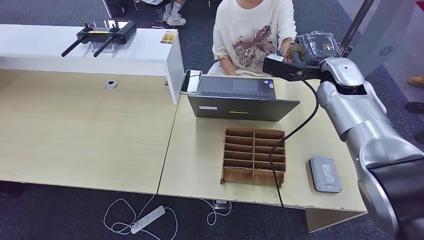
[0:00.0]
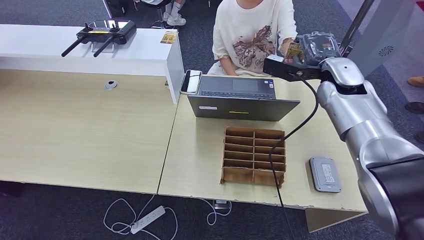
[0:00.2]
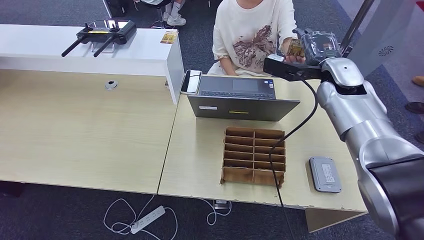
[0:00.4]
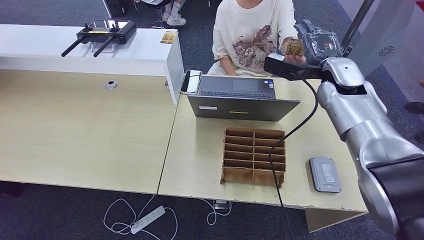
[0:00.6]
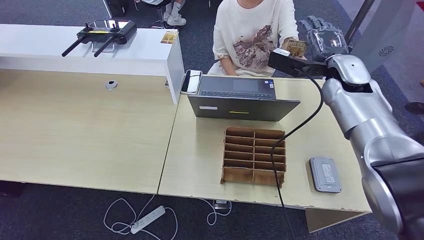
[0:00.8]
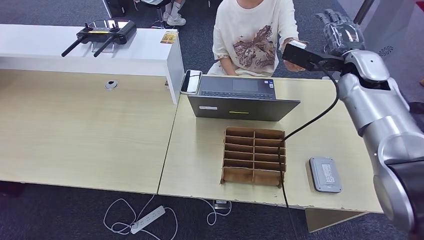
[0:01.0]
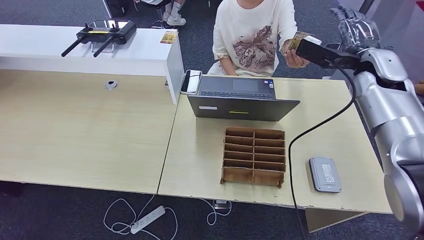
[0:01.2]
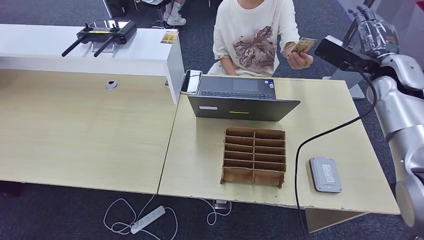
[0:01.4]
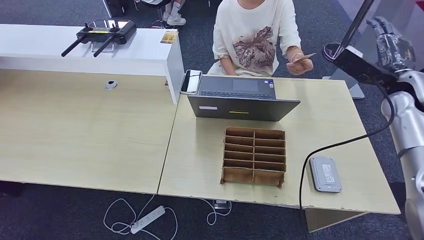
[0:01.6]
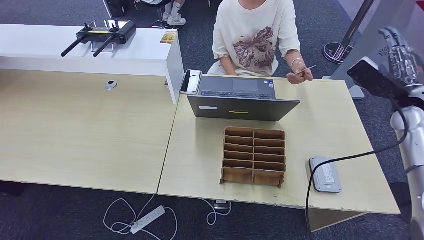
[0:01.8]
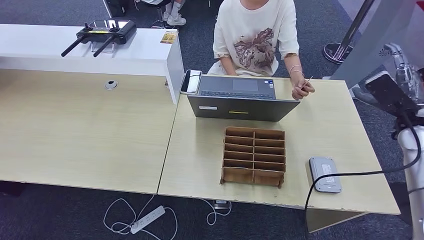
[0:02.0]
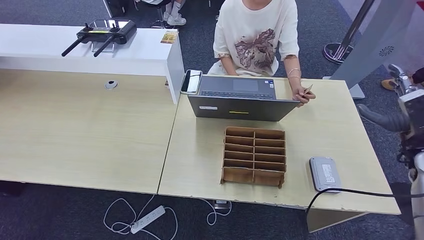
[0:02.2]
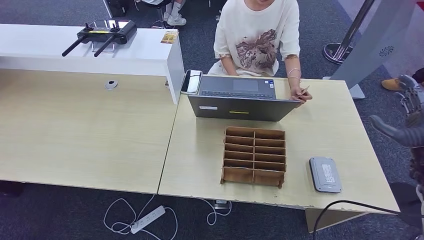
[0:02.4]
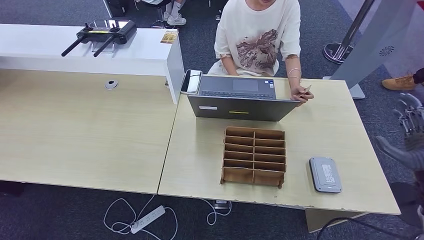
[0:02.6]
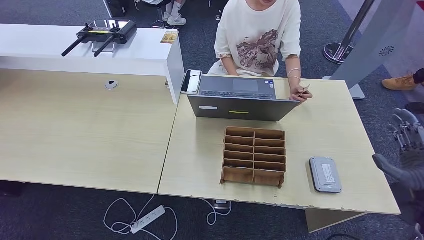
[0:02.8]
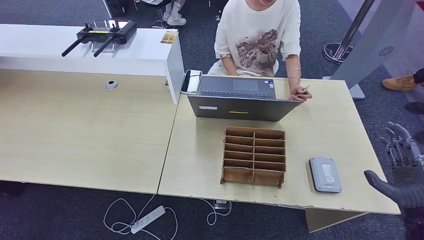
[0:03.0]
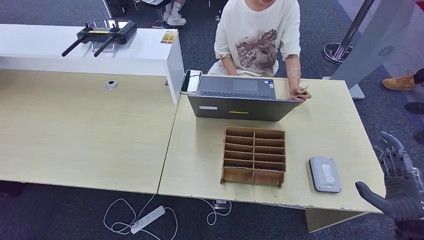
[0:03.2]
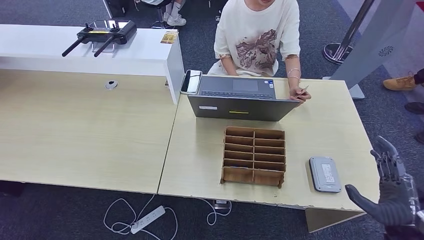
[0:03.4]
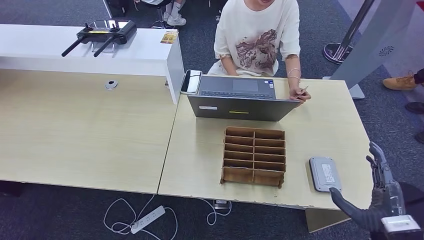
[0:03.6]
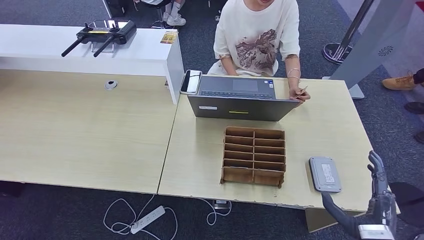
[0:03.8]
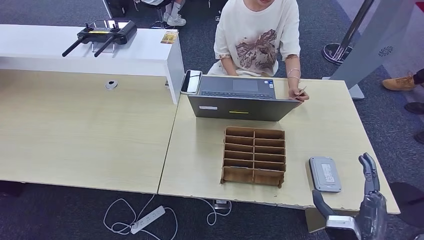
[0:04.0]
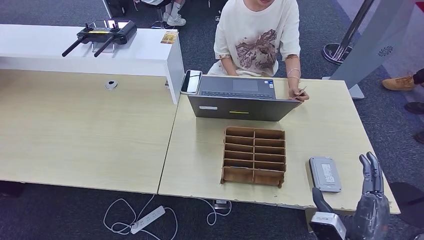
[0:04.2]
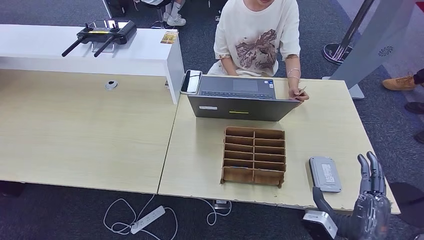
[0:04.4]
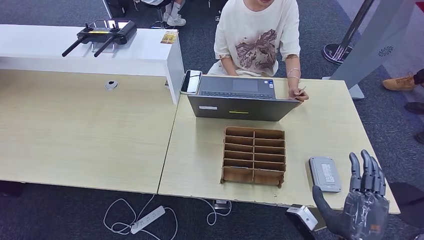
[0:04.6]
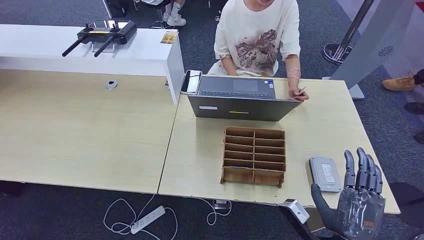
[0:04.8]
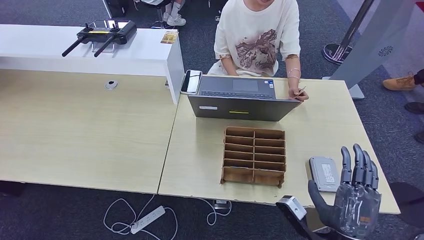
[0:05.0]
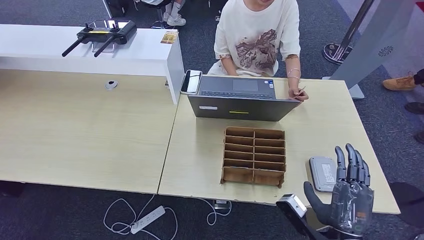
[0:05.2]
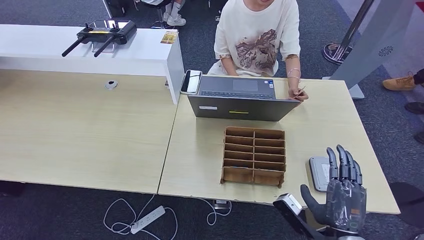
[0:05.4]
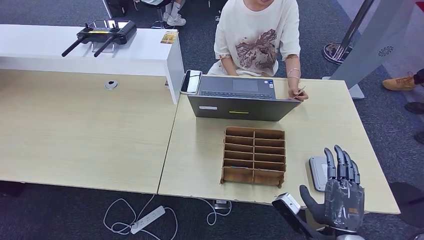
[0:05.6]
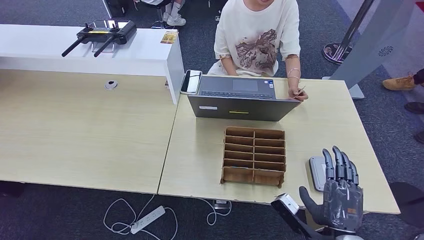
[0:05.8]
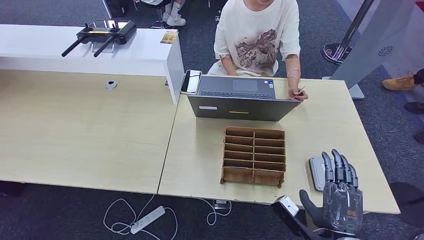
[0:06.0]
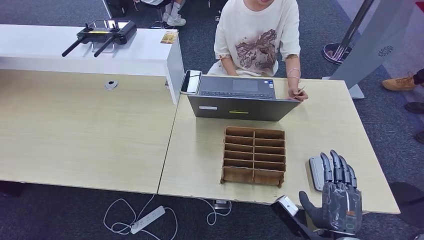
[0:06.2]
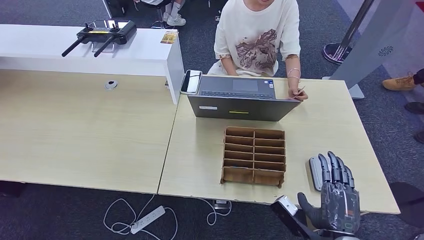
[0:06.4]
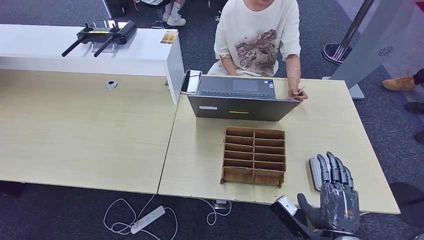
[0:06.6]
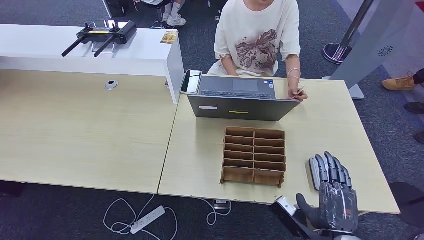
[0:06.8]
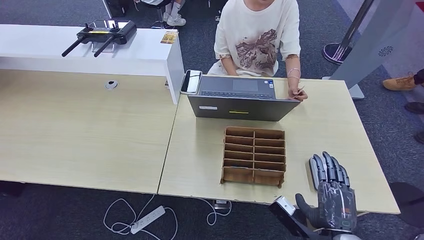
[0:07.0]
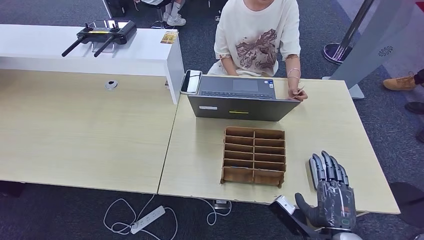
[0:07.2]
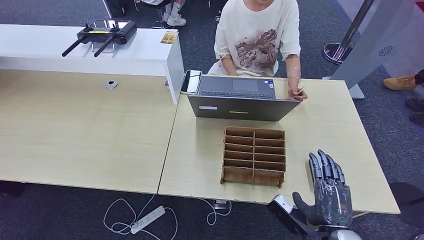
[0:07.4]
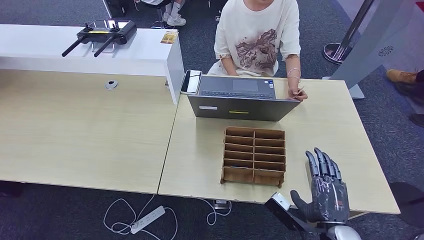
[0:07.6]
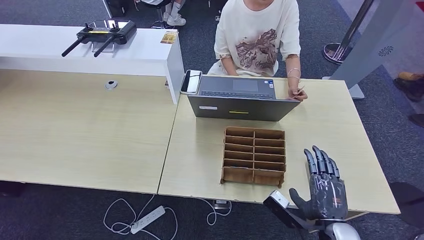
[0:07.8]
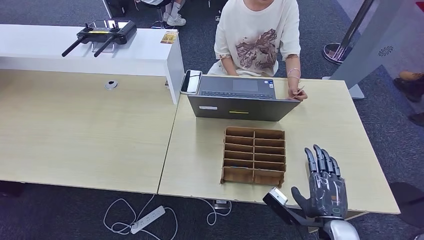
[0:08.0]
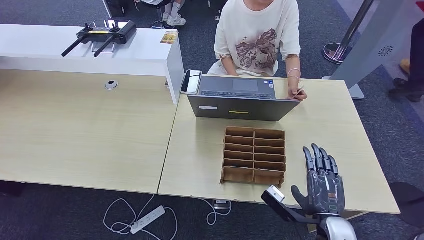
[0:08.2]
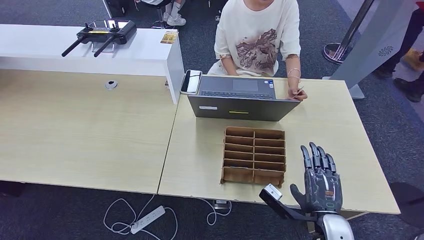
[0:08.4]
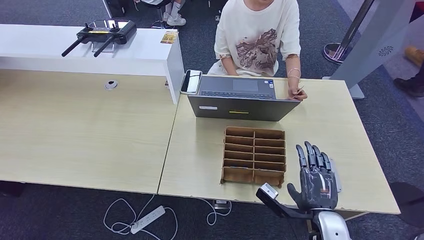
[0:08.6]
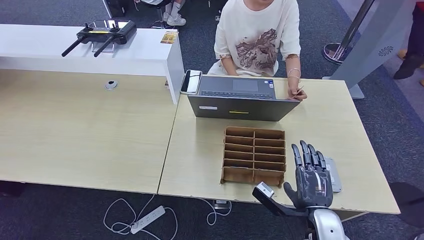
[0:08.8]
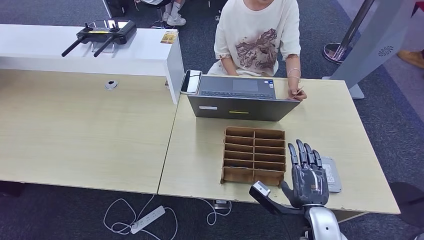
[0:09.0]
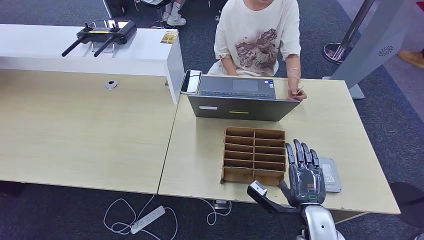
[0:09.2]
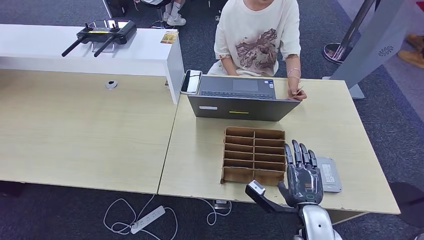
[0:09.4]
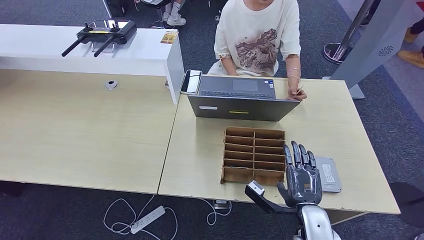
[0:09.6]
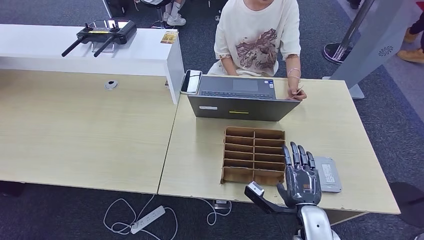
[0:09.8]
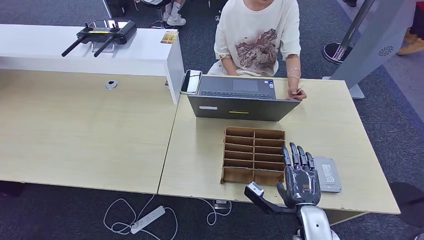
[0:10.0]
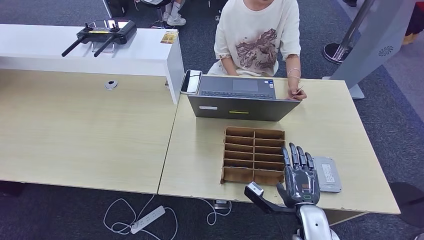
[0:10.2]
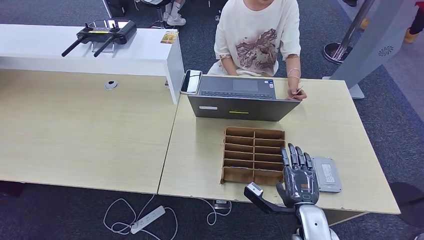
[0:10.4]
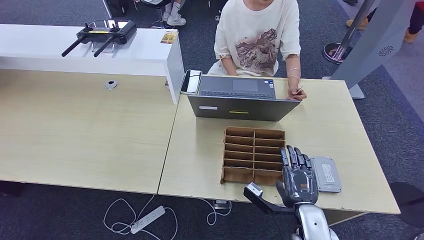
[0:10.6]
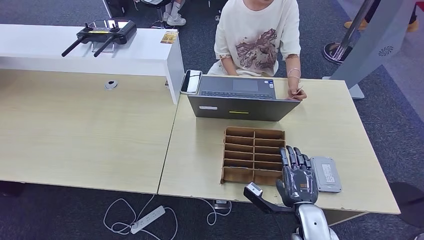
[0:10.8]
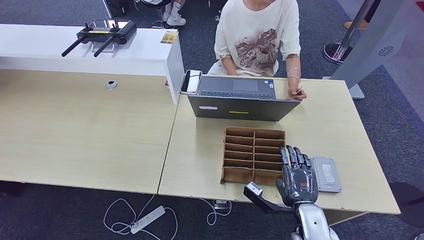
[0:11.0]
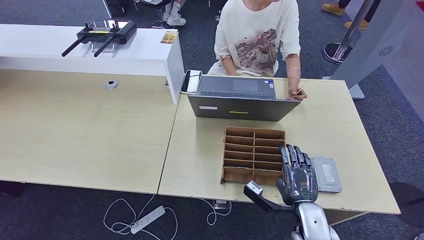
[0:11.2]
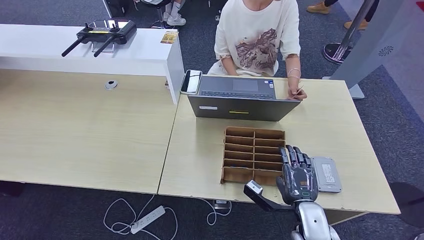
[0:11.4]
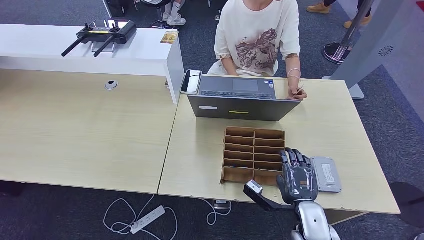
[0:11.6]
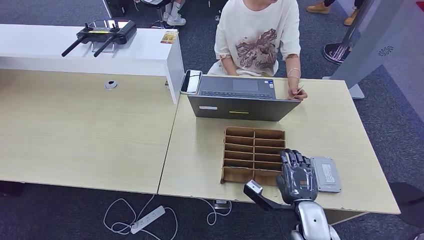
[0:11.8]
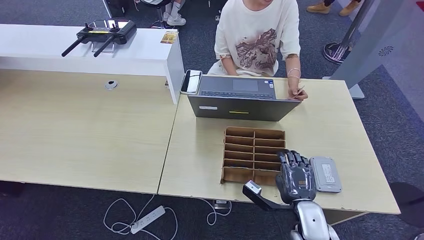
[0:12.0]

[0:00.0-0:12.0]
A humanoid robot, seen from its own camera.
0:00.0 to 0:01.6: The right hand shifts approximately 15 cm to the right.
0:01.6 to 0:03.0: The right hand heads backward and downward, covering roughly 30 cm.
0:03.0 to 0:04.4: The right hand moves to the left and backward, approximately 20 cm.
0:06.0 to 0:07.6: The hands stay close to where they were, moving slightly.
0:07.6 to 0:09.0: The hands make only small movements.
0:09.0 to 0:10.4: The hands stay close to where they were, moving slightly.
0:10.4 to 0:12.0: Neither hand changes place.

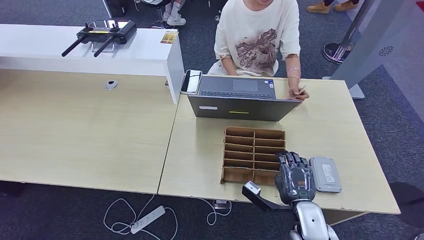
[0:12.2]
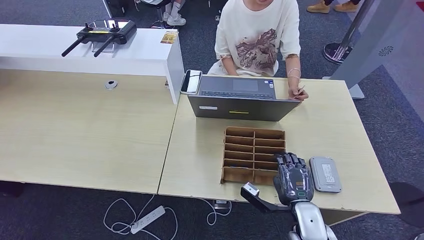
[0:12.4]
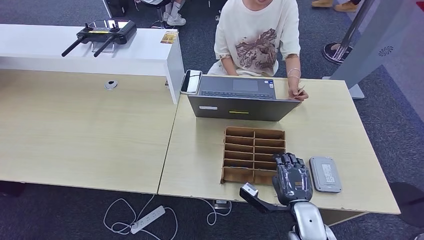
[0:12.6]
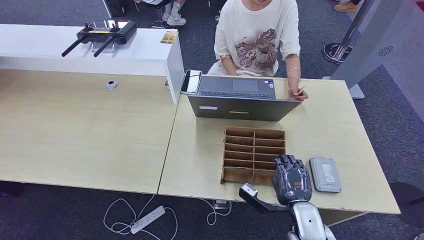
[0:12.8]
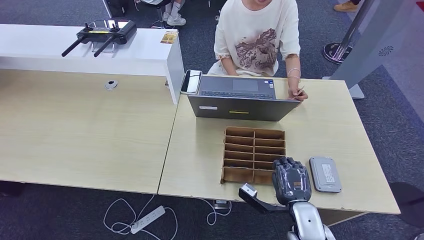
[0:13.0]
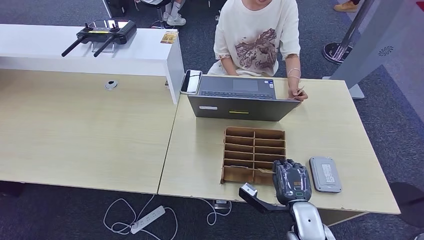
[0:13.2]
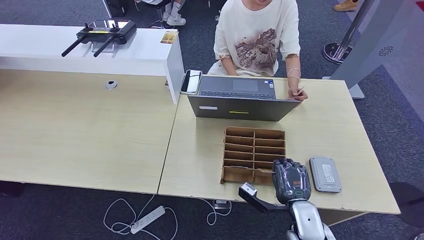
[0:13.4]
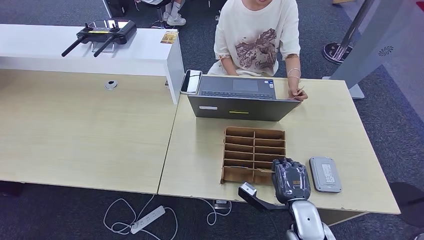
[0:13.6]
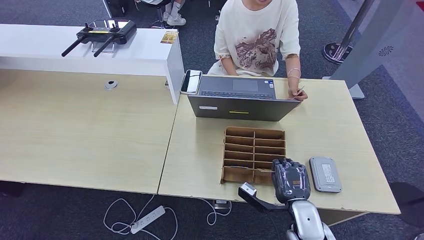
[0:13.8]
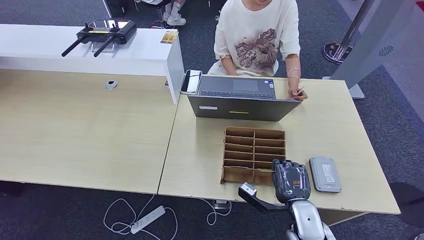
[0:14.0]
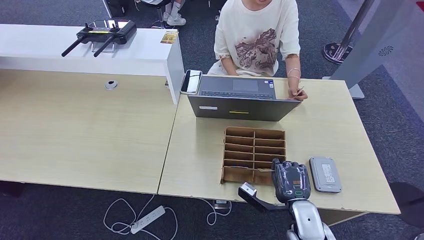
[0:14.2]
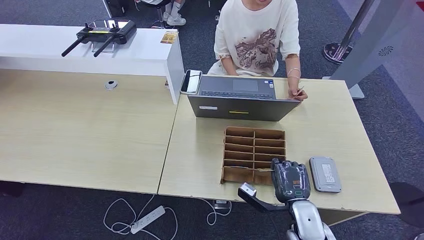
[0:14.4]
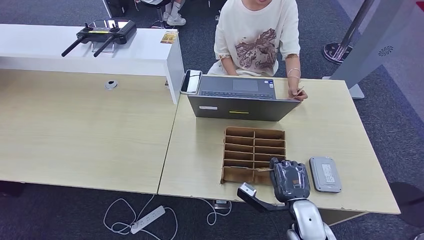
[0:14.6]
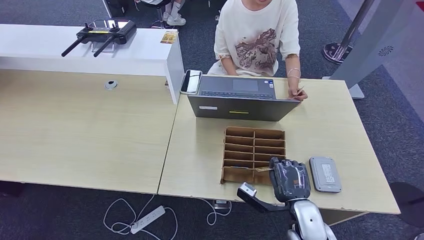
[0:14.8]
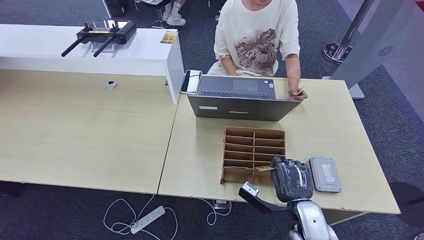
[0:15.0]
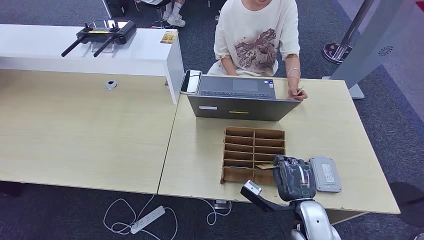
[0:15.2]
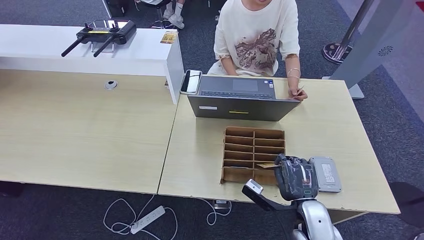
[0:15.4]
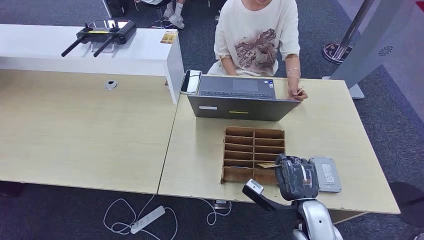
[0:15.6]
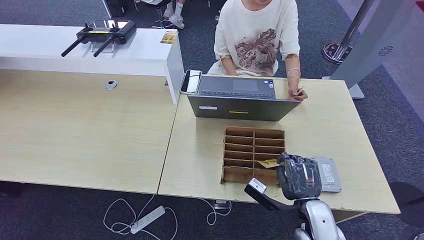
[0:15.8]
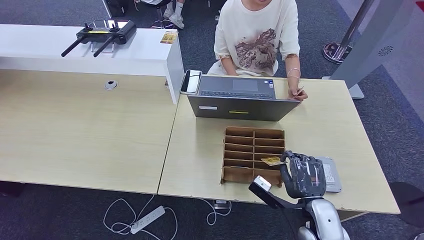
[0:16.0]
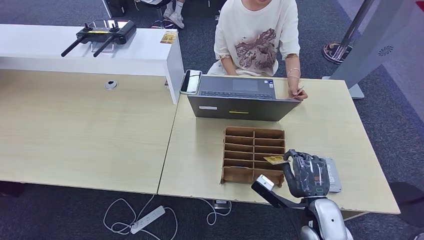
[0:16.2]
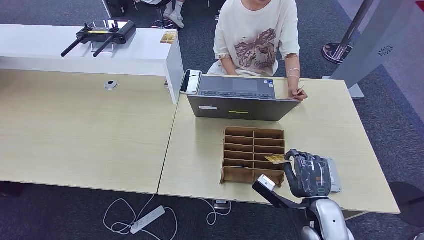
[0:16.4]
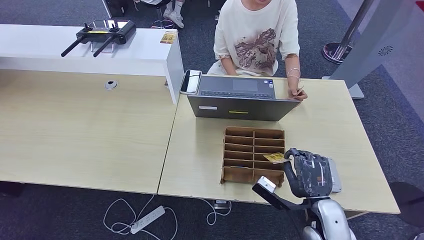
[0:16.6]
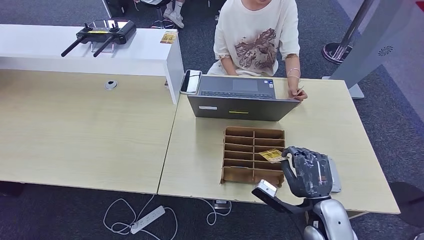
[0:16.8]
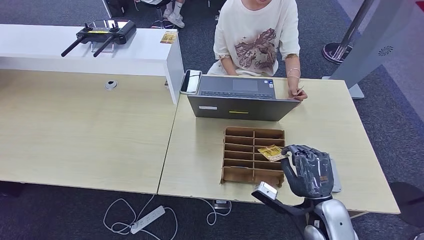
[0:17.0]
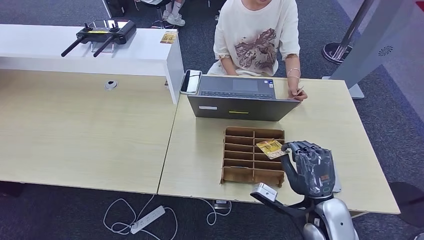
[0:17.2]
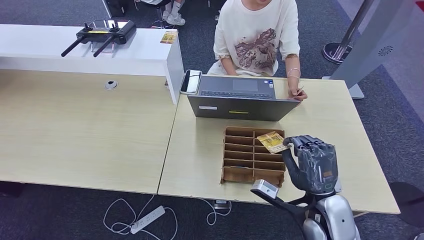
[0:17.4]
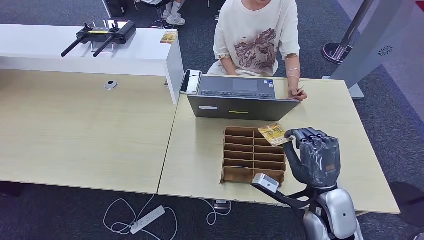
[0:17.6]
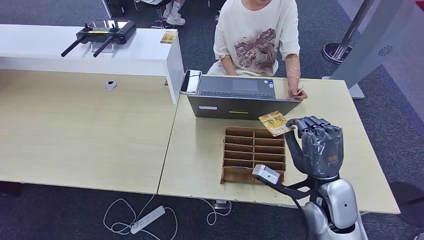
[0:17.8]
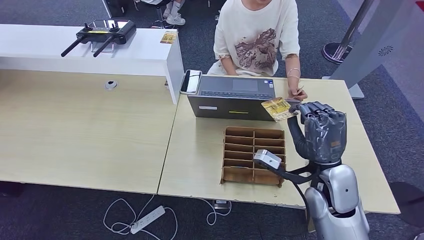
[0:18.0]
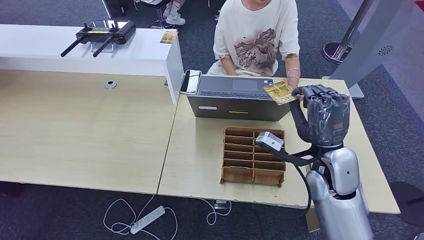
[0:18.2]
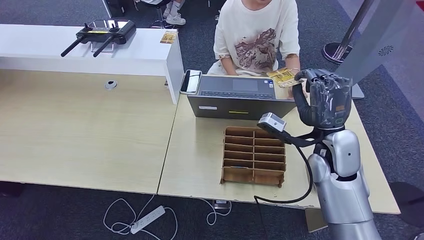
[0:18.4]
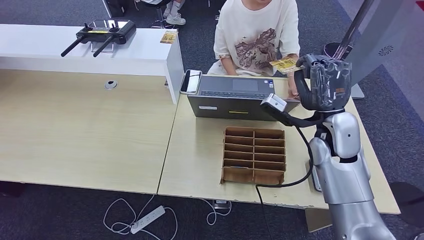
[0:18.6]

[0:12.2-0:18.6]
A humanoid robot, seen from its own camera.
Step, 0:12.2 to 0:15.8: Pick up the room key from the key card box.
0:12.2 to 0:13.8: The two hands keep their place.
0:13.8 to 0:15.4: The hands stay close to where they were, moving slightly.
0:15.4 to 0:17.0: The hands move only a little.
0:17.0 to 0:18.6: The right hand heads forward and upward, covering approximately 20 cm.
